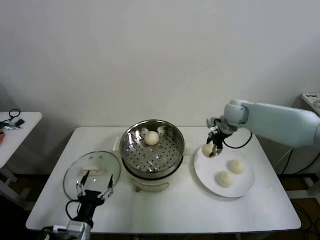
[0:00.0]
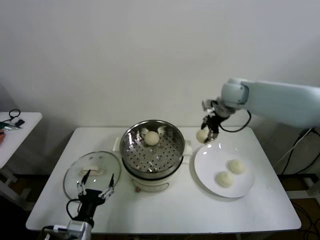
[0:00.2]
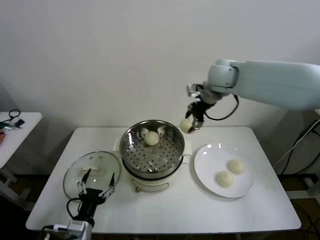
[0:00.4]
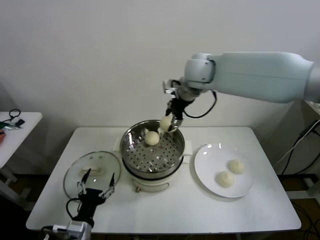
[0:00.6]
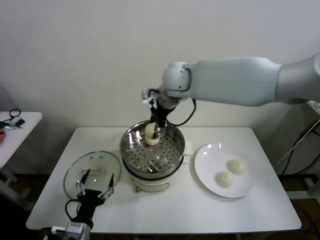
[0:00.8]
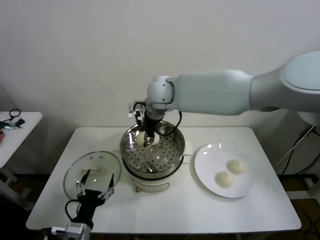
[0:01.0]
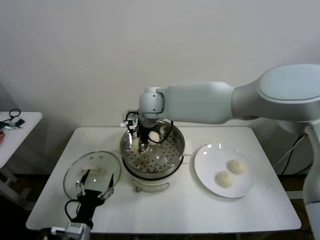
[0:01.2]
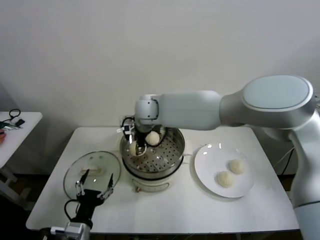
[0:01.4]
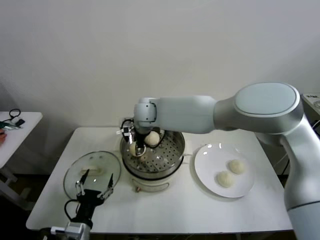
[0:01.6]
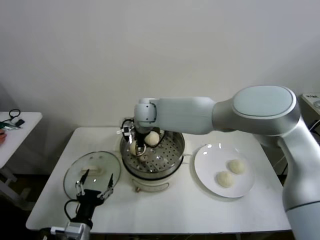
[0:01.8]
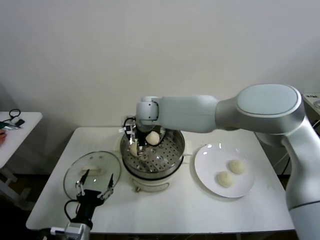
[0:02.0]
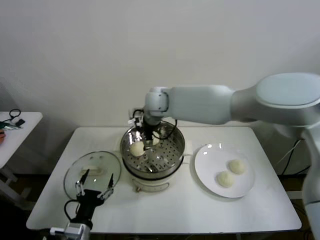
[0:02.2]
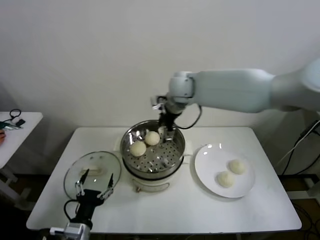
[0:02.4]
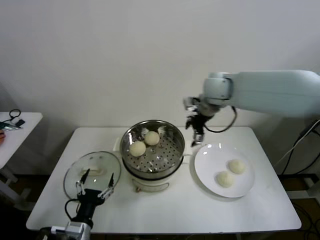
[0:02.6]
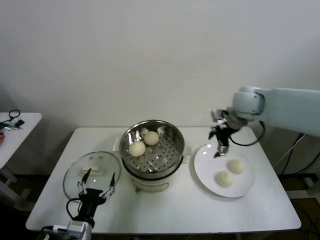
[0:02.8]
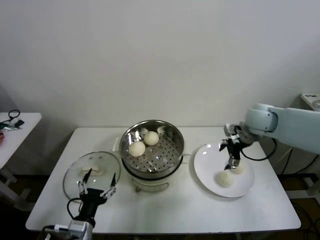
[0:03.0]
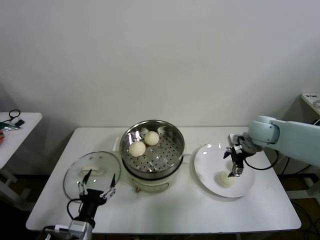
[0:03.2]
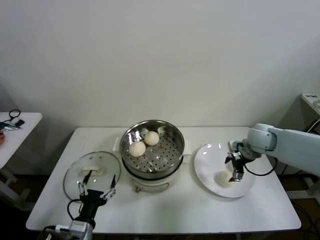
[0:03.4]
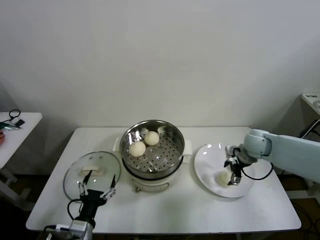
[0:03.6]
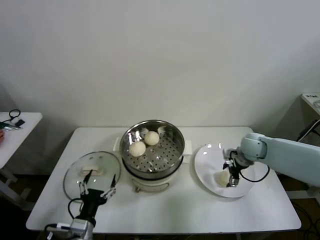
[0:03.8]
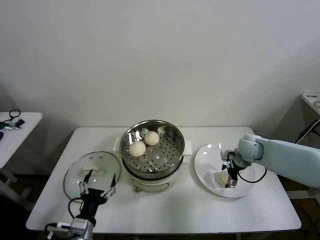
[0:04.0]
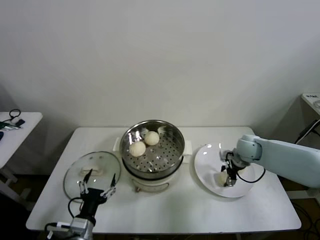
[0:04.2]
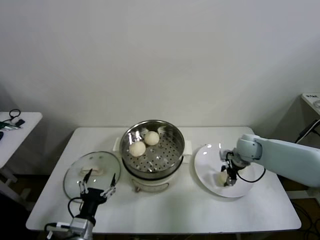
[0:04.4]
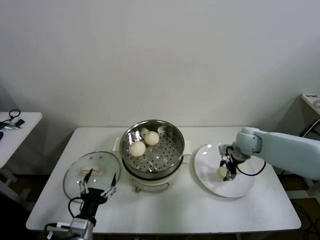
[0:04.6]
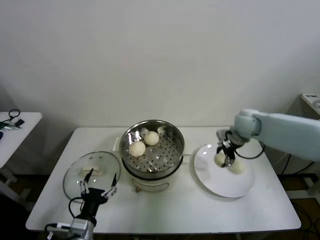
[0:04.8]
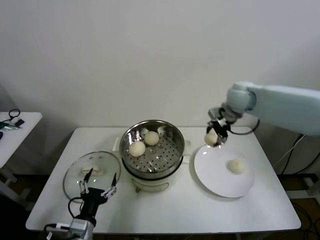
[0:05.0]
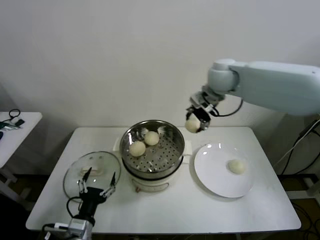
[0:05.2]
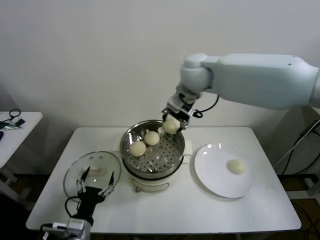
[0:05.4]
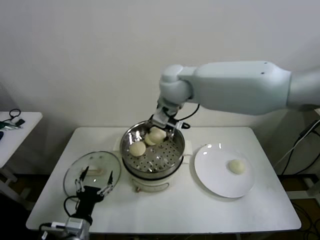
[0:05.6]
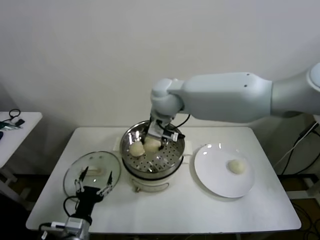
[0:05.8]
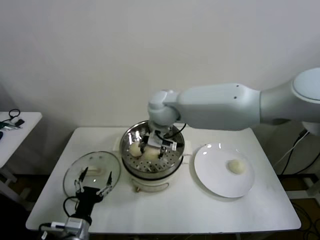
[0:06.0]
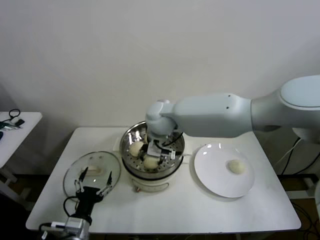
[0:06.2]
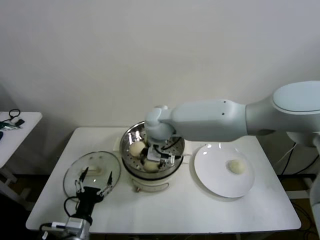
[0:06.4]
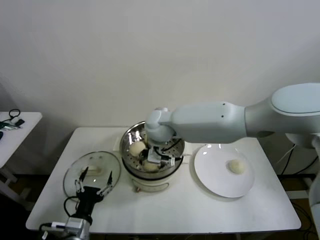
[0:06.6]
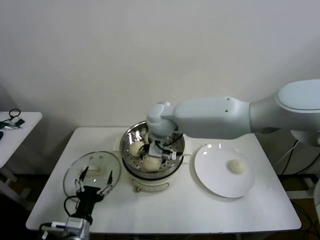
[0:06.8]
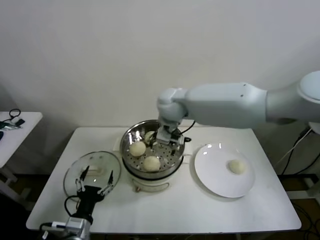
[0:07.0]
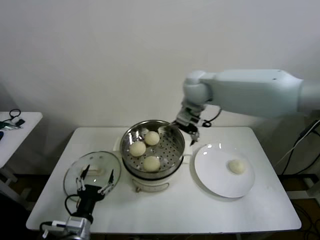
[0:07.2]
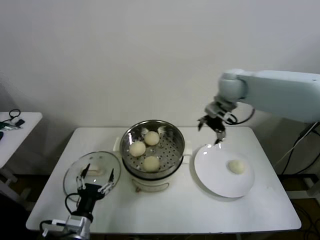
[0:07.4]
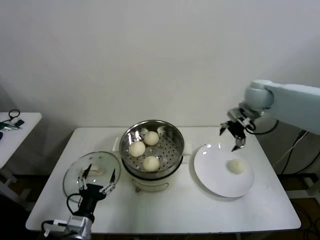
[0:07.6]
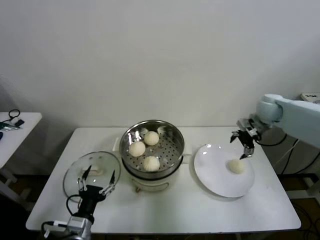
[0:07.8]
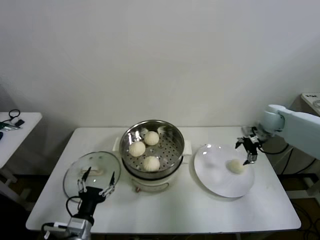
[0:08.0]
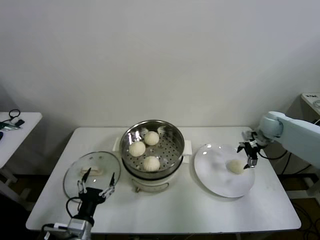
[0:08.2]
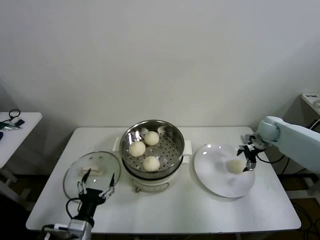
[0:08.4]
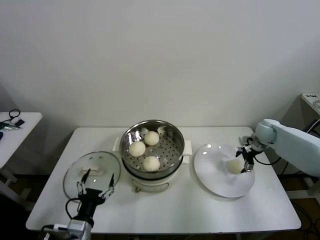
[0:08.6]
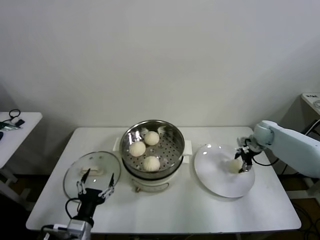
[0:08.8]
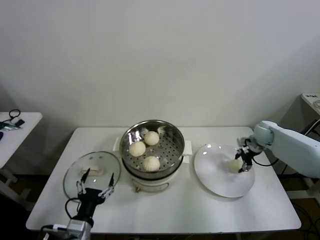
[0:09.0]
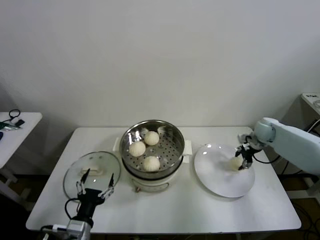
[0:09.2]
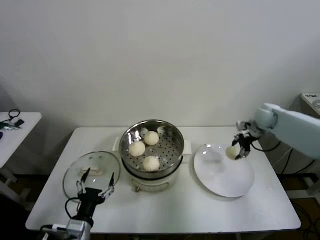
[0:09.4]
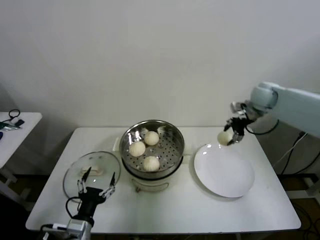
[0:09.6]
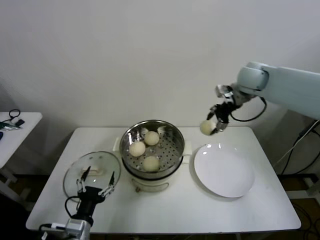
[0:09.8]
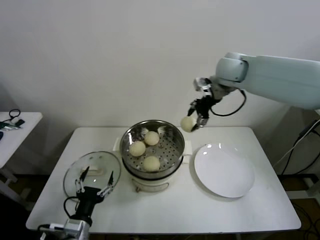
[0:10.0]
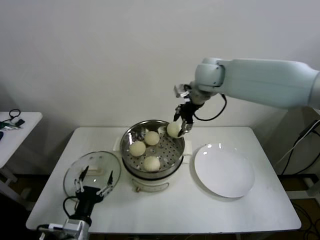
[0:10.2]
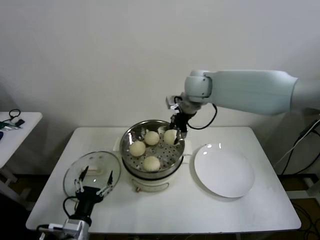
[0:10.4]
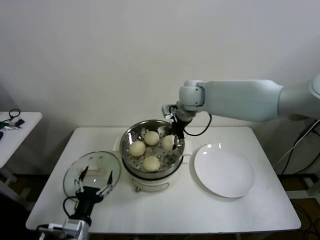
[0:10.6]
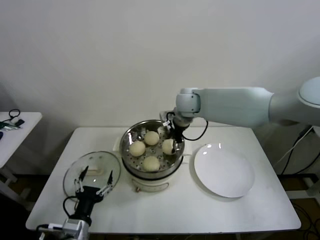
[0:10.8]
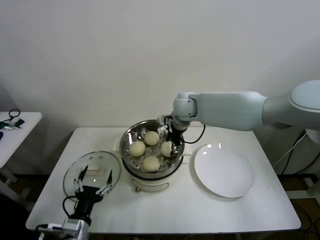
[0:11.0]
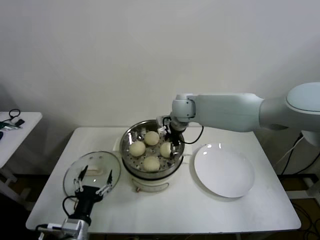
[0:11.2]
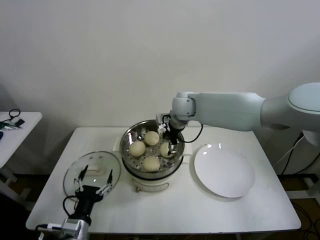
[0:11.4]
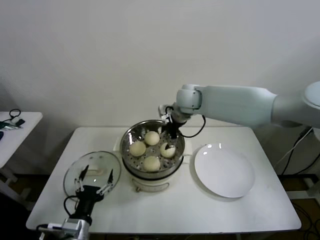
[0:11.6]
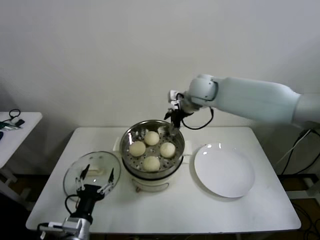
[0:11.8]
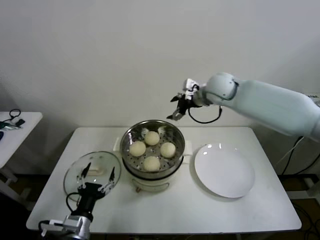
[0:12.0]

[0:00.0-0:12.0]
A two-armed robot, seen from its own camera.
Step, 0:00.0 to 0:01.8: Place the baozi on the steamer with right gripper.
Step, 0:02.0 to 0:04.2: Grasp the baozi in the plate with right gripper.
Step, 0:04.4 to 0:06.6: Place the baozi on the steamer with right gripper.
Step, 0:06.8 to 0:08.8: Grasp the baozi in the plate with right gripper.
Step, 0:09.2 to 0:11.0: Place the baozi on the steamer with right gripper.
0:00.0 to 0:01.6: The right gripper shifts roughly 30 cm to the left.
0:01.6 to 0:03.0: The right gripper goes about 40 cm to the right, and opens up.
0:03.0 to 0:04.4: The right gripper travels downward by roughly 10 cm, and closes.
0:04.4 to 0:06.0: The right gripper heads to the left and upward, covering roughly 35 cm.
0:06.0 to 0:07.6: The right gripper moves to the right, some 35 cm, and opens its fingers.
0:07.6 to 0:09.0: The right gripper moves downward and to the right, some 20 cm, and closes its fingers.
0:09.0 to 0:10.4: The right gripper travels to the left and upward by about 40 cm.
0:10.4 to 0:12.0: The right gripper is displaced to the right by about 10 cm, and opens up.

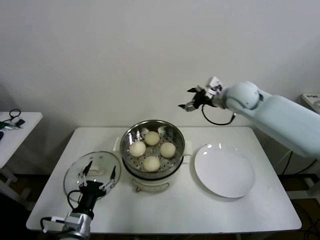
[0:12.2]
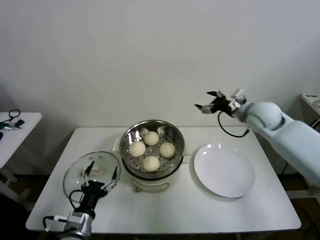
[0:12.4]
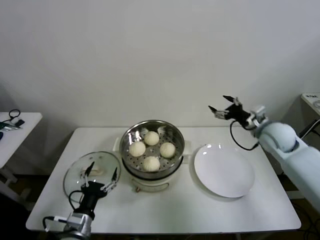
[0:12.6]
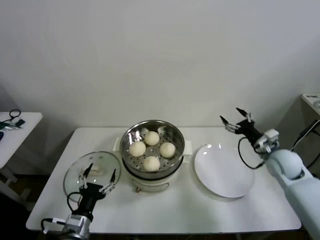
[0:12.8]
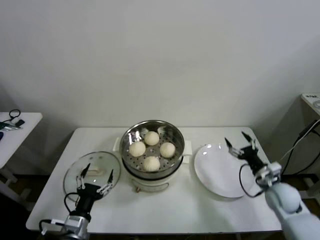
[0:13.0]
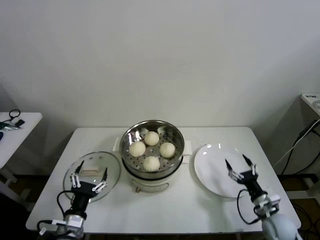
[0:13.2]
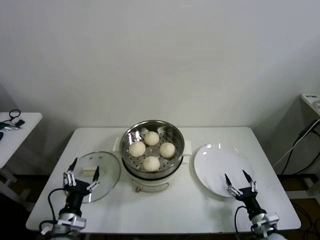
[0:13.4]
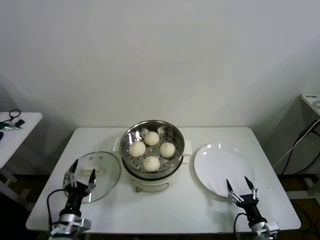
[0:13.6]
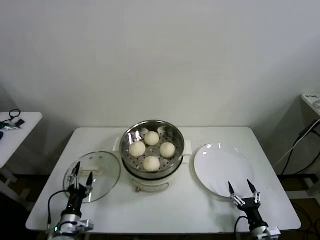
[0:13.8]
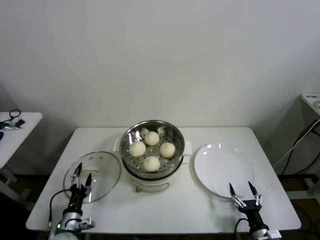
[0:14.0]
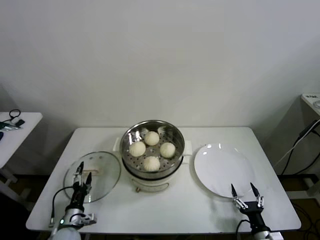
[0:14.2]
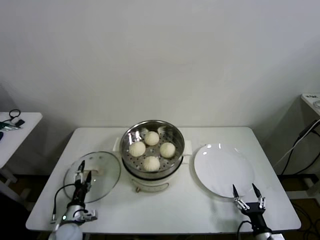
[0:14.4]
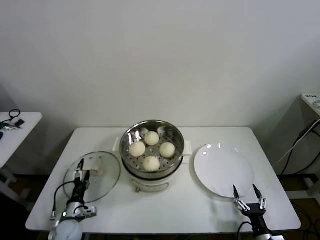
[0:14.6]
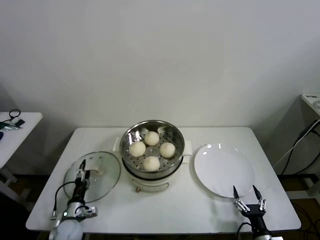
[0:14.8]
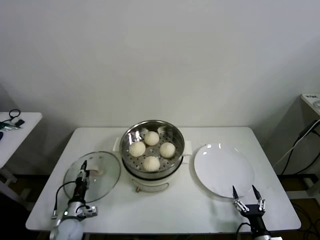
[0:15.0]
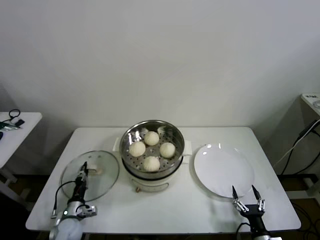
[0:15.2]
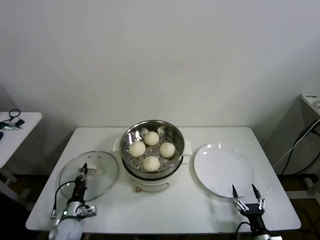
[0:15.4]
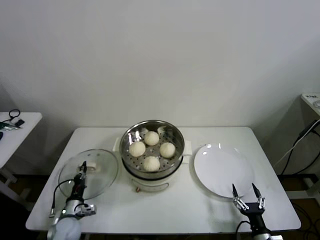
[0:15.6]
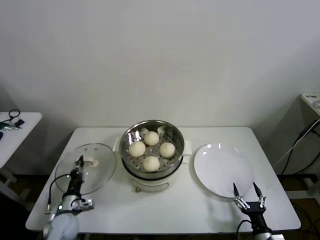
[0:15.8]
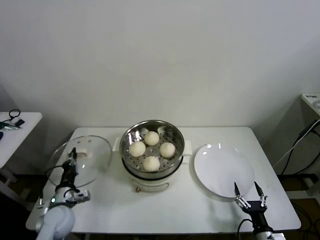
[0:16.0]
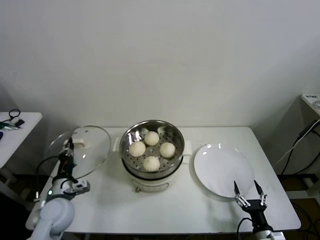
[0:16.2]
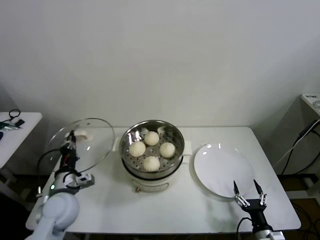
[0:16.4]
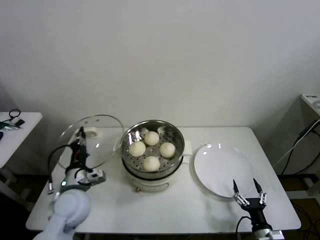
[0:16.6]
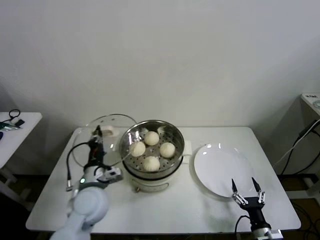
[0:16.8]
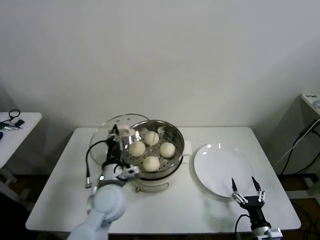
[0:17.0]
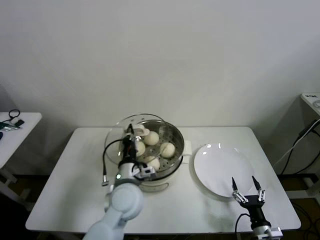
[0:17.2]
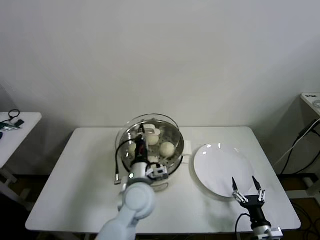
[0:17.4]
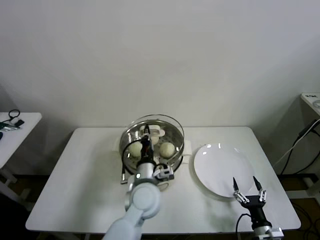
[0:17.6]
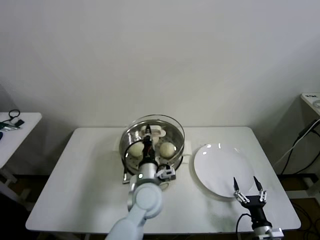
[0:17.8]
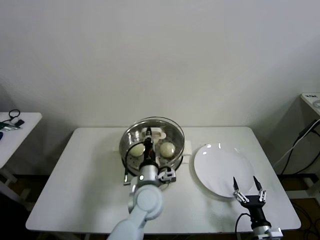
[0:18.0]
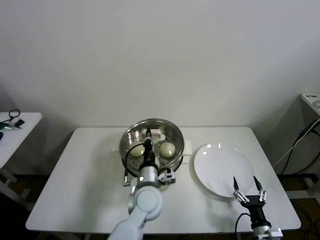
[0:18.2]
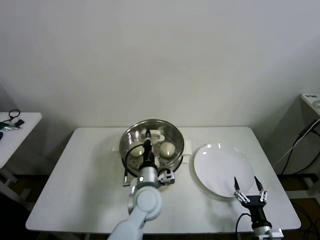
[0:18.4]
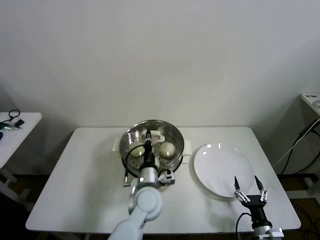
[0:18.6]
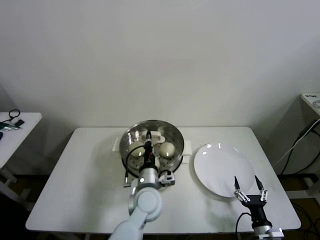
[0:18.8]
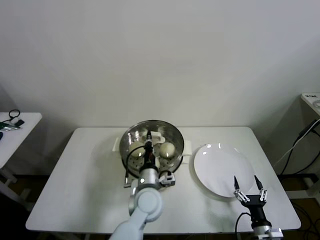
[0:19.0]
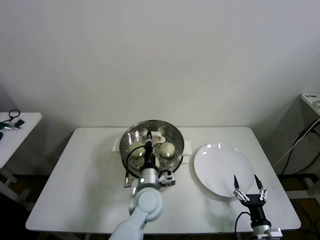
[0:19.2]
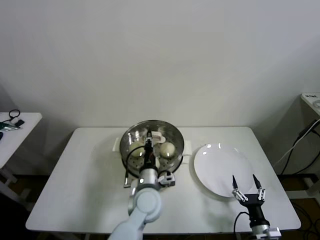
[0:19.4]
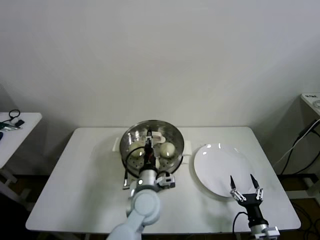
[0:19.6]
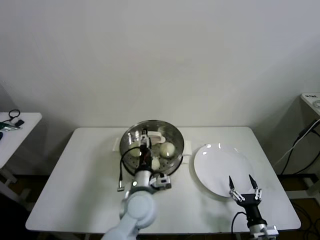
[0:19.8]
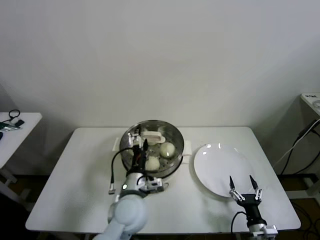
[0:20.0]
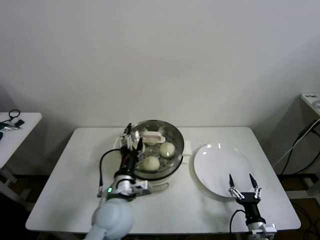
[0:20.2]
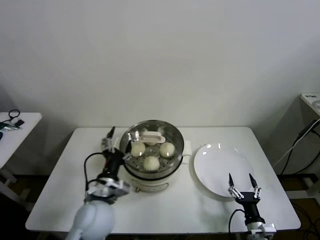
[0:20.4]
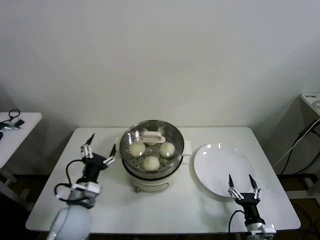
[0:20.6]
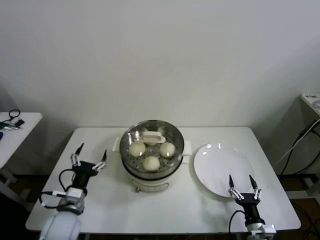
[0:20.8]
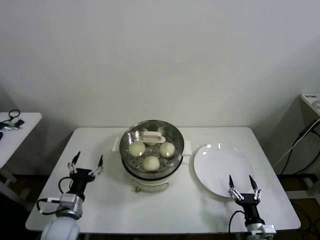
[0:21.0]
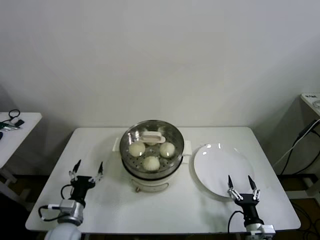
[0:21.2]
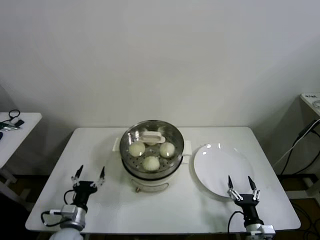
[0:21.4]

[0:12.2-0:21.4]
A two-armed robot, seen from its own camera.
Step, 0:12.2 to 0:15.2: Grasp the pot lid with left gripper.
Step, 0:15.6 to 0:19.2: Place the pot lid on the steamer with left gripper.
0:12.2 to 0:13.8: The right gripper heads downward and backward, covering about 50 cm, while the left gripper goes approximately 10 cm downward and to the left.
0:13.8 to 0:15.2: The left gripper travels downward and forward by roughly 10 cm, and closes up.
0:15.2 to 0:16.8: The left gripper shifts approximately 25 cm upward and to the right.
0:16.8 to 0:18.4: The left gripper heads to the right, covering approximately 15 cm.
0:18.4 to 0:19.8: The left gripper opens up.
0:19.8 to 0:21.4: The left gripper heads to the left and downward, covering some 25 cm.

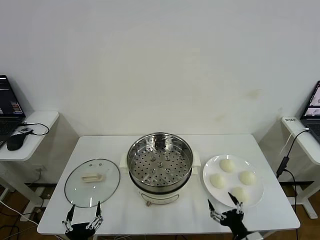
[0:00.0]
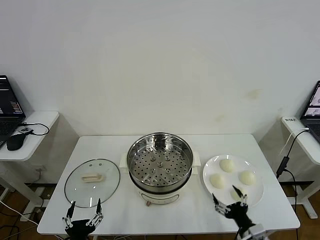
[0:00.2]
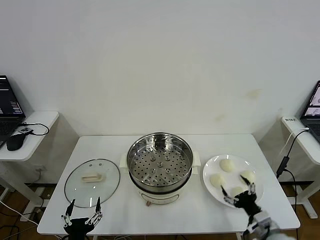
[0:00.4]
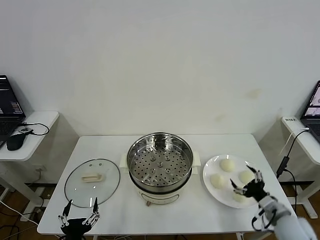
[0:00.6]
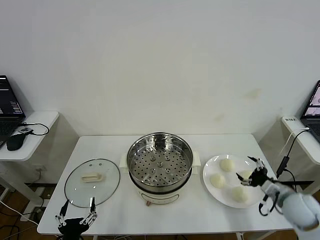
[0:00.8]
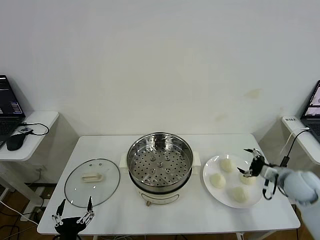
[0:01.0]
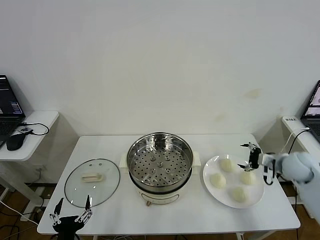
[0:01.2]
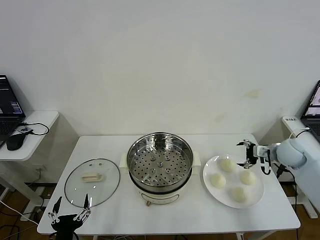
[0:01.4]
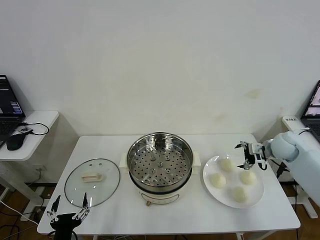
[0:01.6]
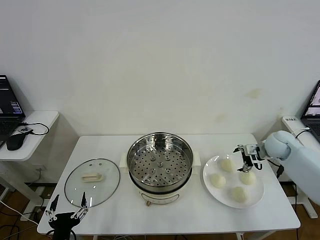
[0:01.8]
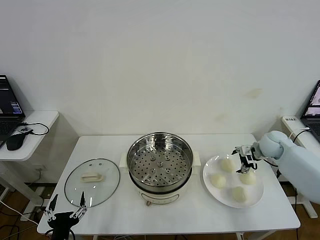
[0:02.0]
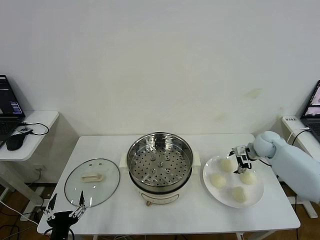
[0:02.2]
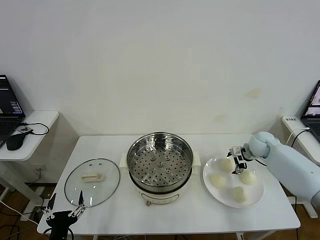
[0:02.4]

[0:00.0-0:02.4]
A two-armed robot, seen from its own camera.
0:01.2 to 0:02.4: The right gripper is displaced forward, to the left and downward by about 15 cm.
